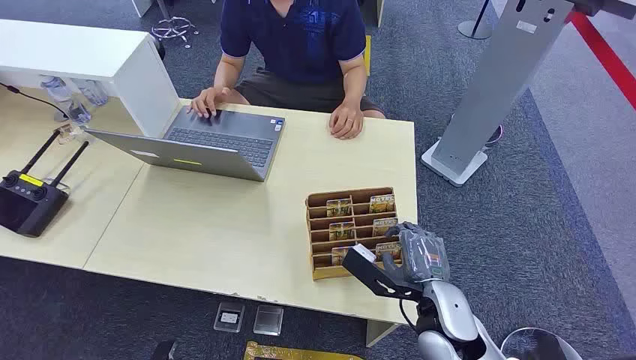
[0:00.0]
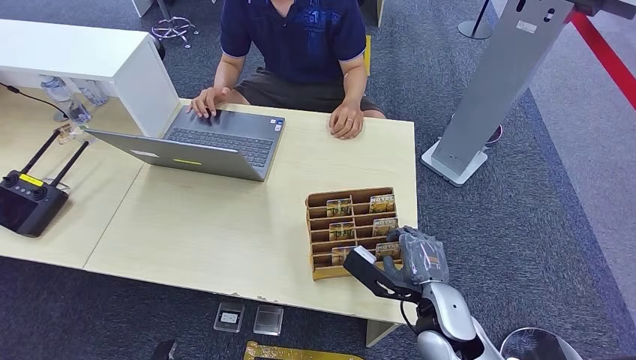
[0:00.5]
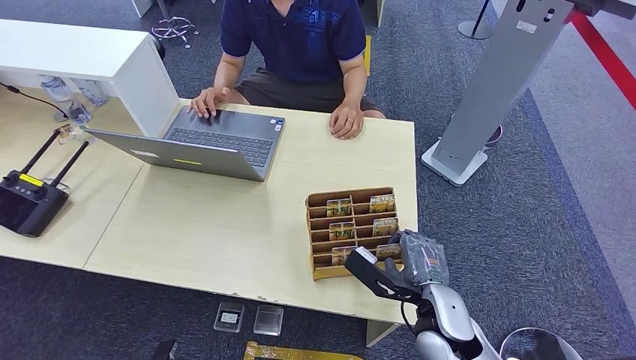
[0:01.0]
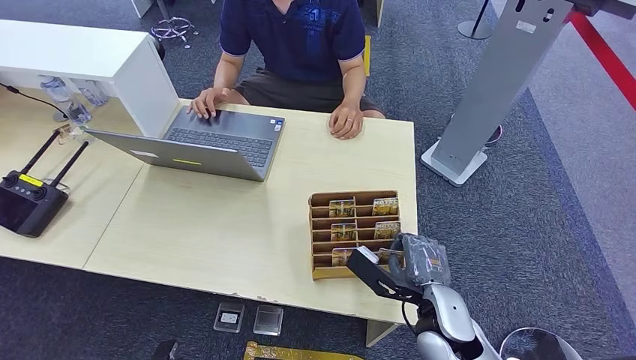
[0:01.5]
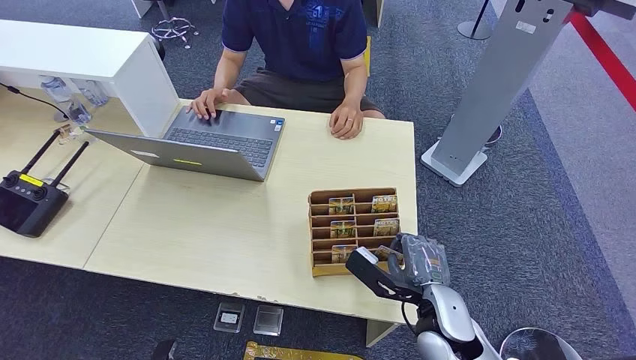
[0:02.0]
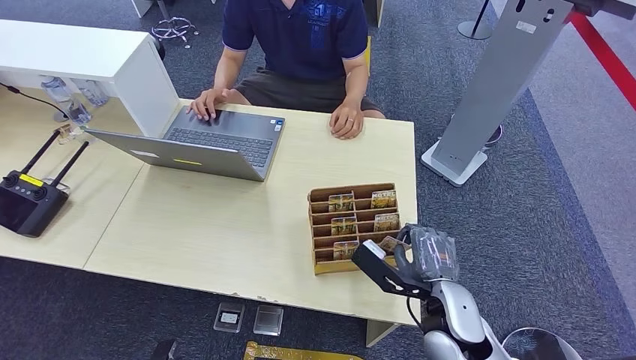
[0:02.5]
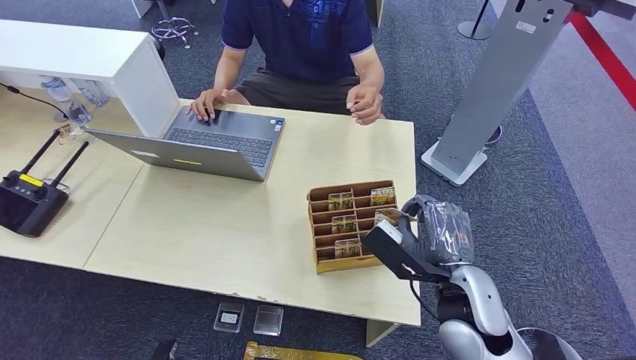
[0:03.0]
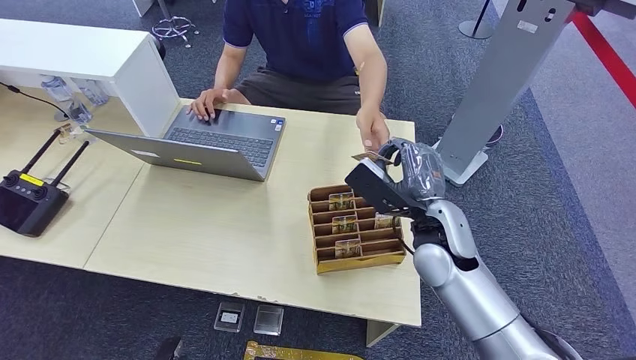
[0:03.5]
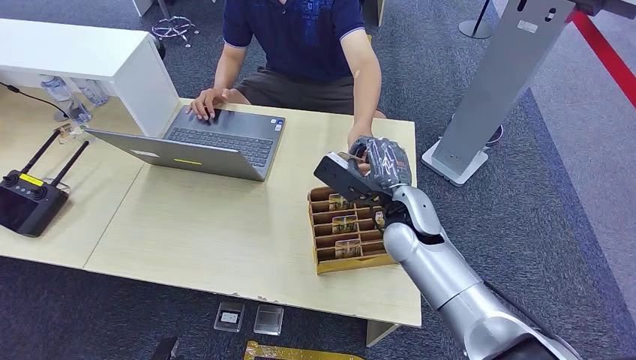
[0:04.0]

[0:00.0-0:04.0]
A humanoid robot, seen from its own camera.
Step, 0:00.0 to 0:02.5: Pick up the key card from the card box.
Step, 0:03.5 to 0:04.0: Hand the key card to the target.
0:02.0 to 0:04.0: The right hand moves forward, upward and to the left, about 15 cm.
